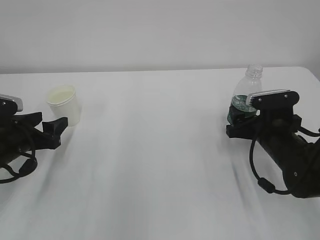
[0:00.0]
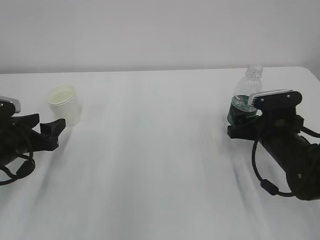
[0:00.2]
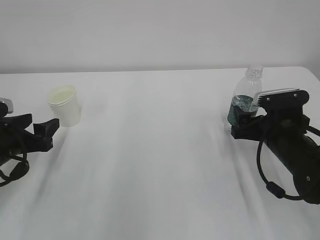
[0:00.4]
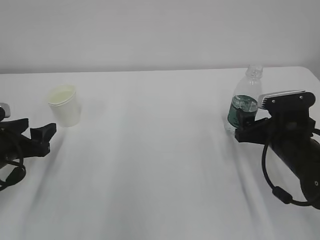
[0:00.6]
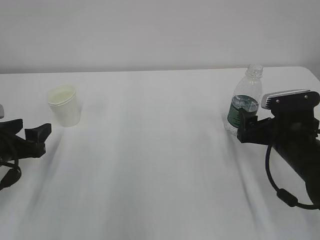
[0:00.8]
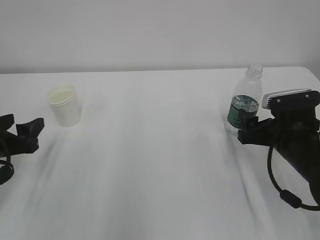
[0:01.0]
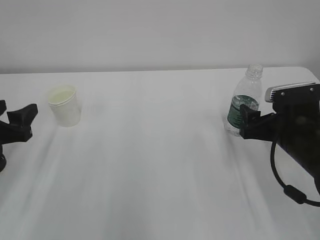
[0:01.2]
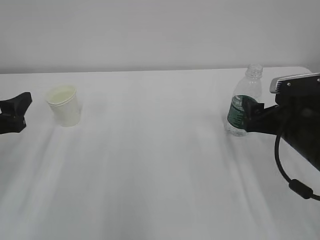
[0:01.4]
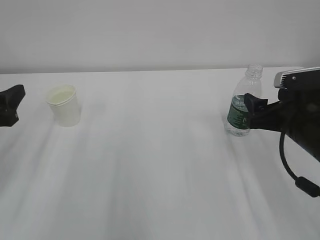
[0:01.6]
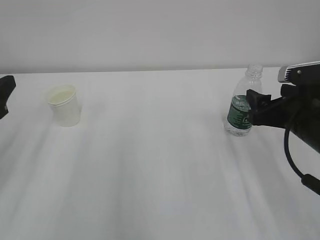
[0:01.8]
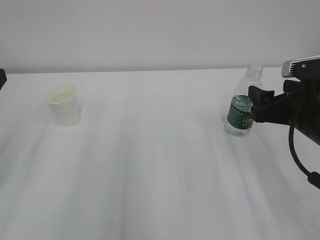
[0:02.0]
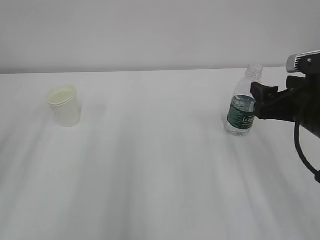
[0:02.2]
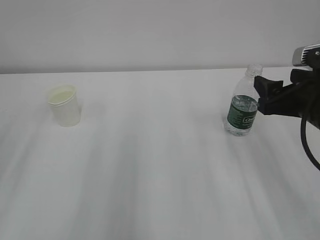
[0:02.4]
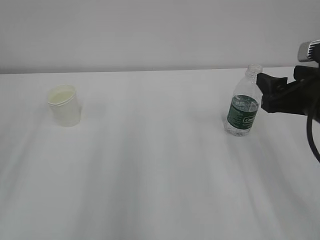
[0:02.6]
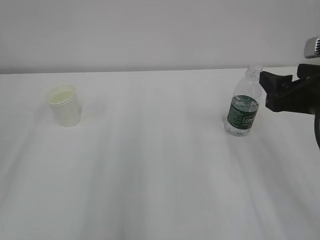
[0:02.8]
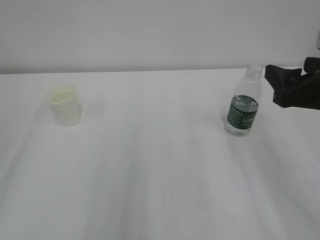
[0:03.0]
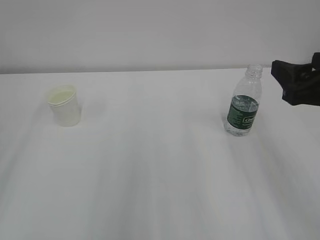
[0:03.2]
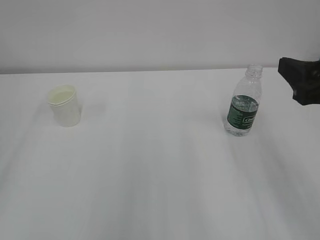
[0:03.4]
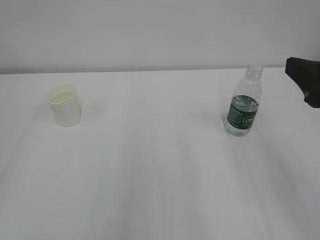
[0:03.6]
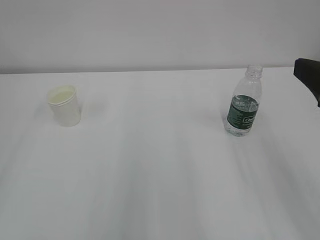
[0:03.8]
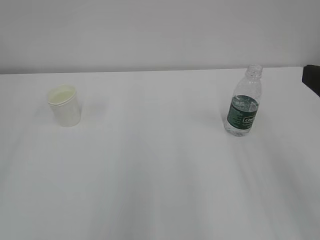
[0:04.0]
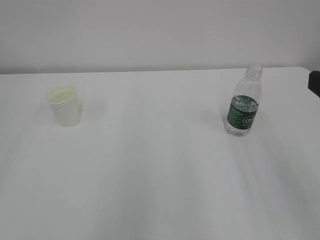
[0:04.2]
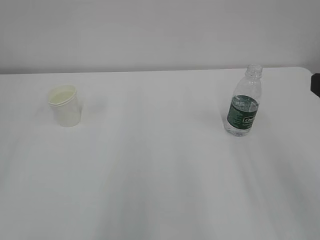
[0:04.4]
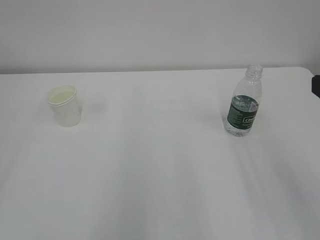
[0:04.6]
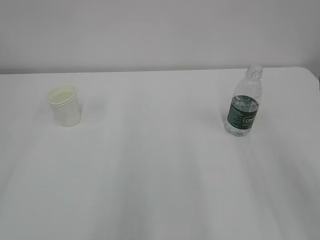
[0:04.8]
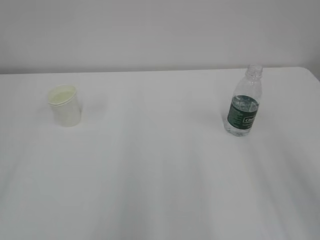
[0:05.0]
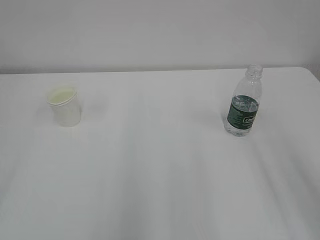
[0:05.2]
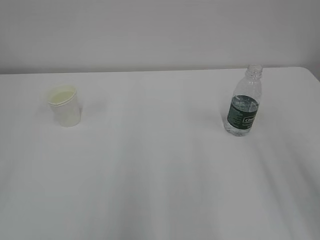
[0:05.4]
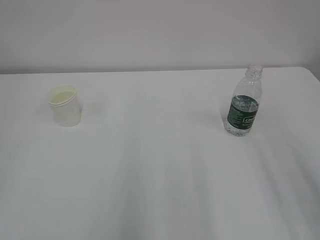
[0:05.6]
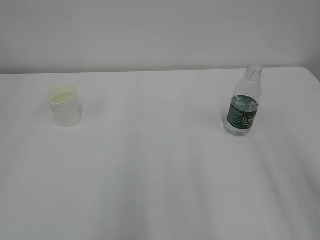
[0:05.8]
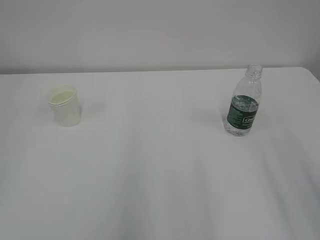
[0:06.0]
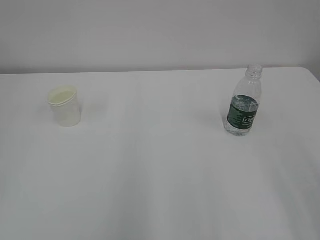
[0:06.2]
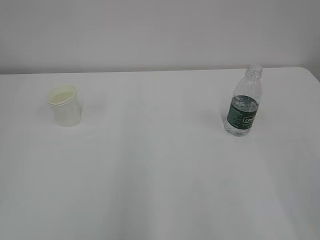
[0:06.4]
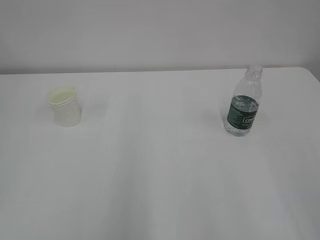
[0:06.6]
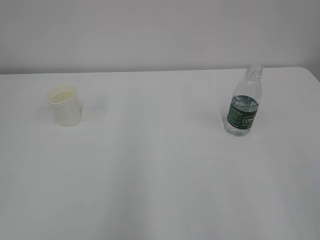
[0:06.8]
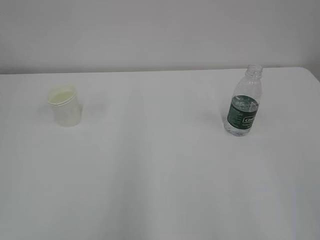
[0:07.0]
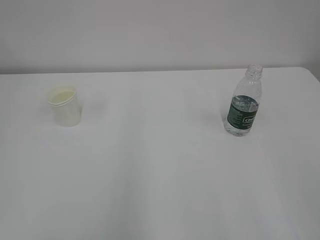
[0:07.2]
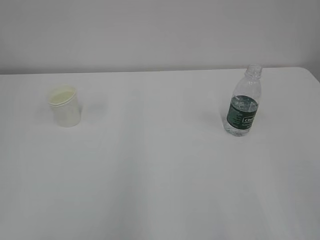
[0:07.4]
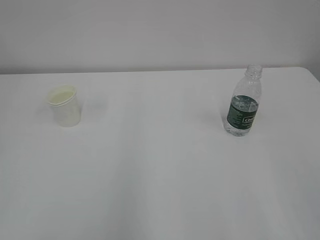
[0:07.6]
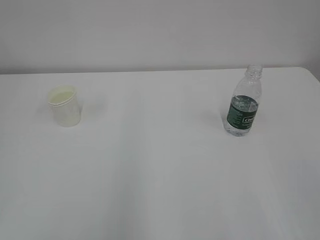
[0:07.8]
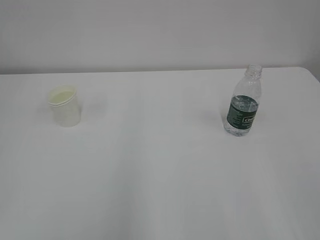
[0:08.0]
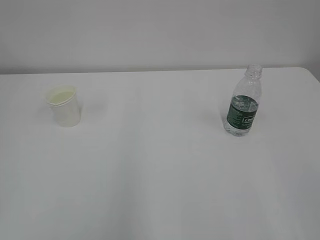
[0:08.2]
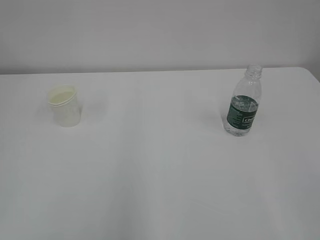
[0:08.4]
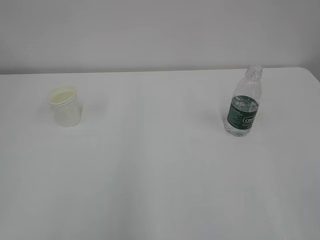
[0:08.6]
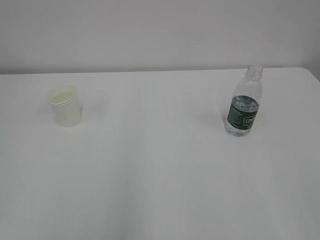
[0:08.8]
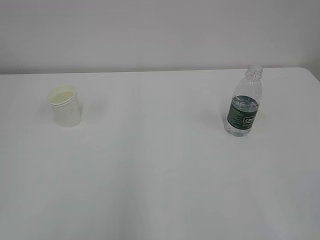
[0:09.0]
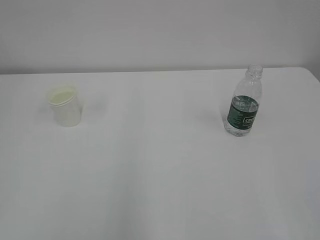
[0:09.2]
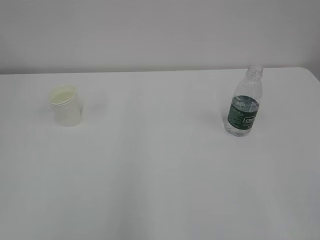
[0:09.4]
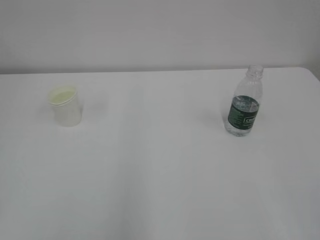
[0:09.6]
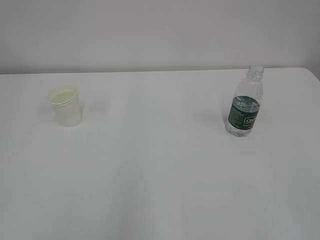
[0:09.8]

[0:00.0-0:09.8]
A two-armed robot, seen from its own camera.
0:00.0 to 0:01.4: The grippers both shift upward by approximately 5 cm.
0:01.4 to 0:02.8: The left gripper heads upward and backward, covering approximately 15 cm. The right gripper goes some 10 cm upward.
0:02.8 to 0:04.2: The right gripper travels backward and upward by about 10 cm.

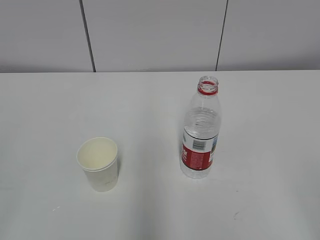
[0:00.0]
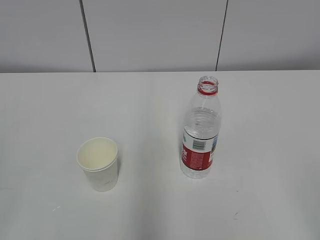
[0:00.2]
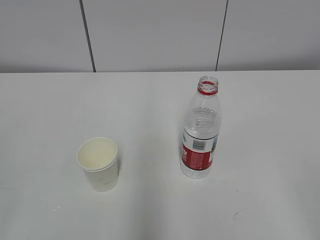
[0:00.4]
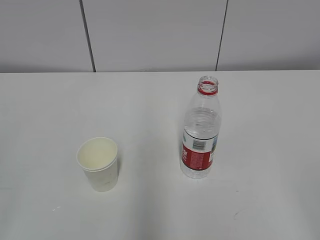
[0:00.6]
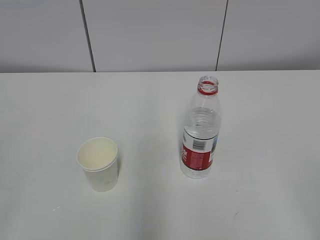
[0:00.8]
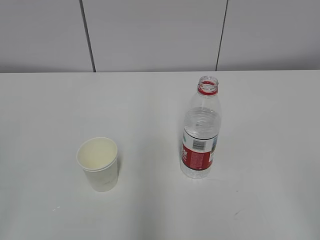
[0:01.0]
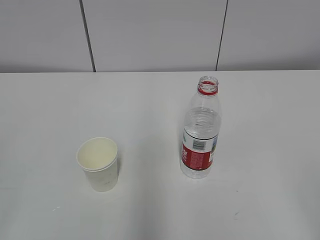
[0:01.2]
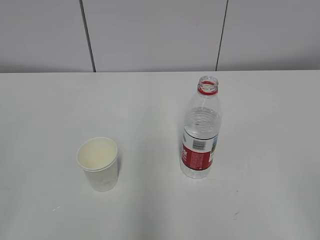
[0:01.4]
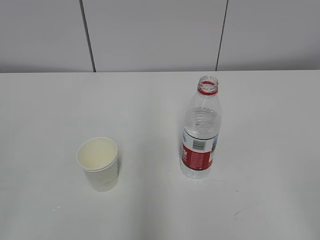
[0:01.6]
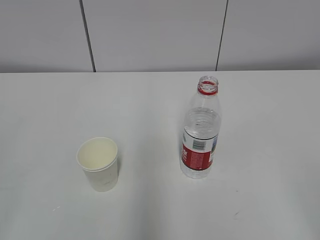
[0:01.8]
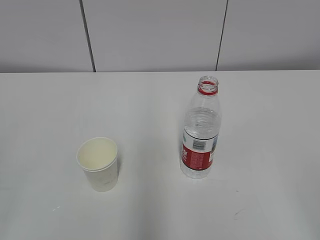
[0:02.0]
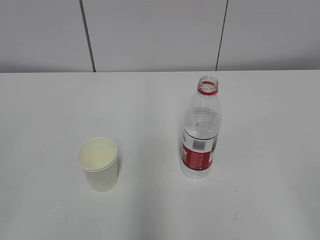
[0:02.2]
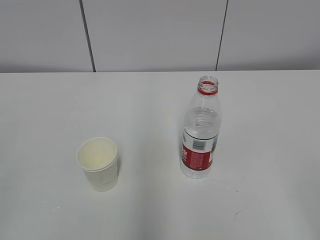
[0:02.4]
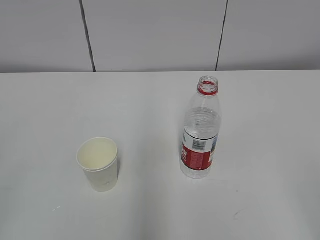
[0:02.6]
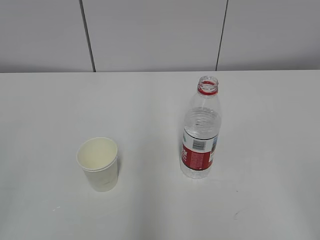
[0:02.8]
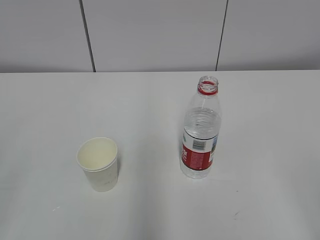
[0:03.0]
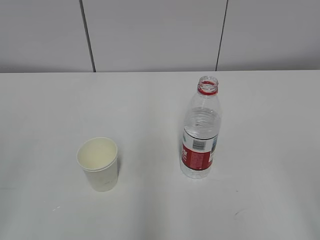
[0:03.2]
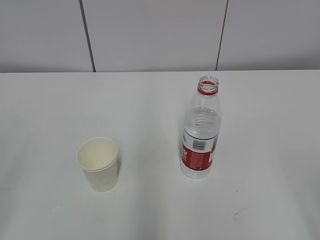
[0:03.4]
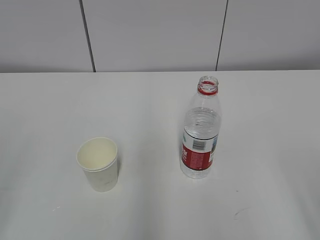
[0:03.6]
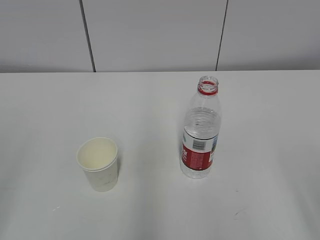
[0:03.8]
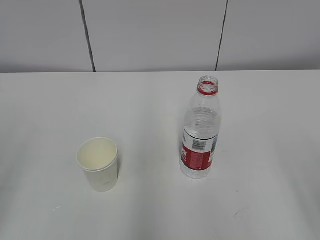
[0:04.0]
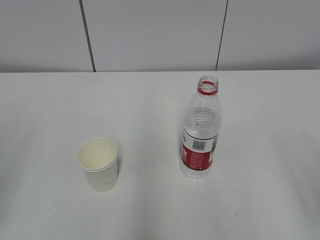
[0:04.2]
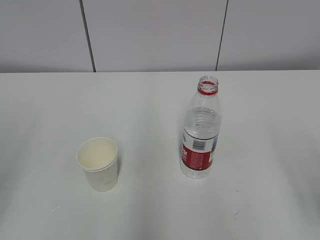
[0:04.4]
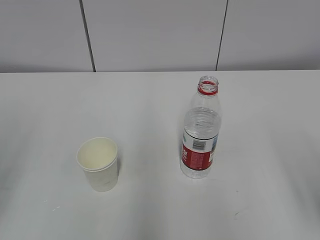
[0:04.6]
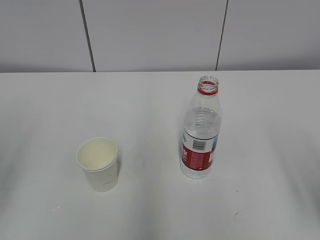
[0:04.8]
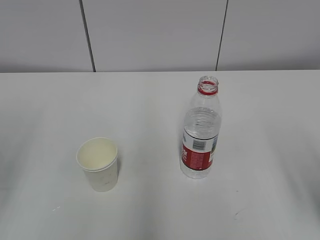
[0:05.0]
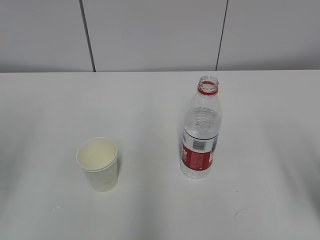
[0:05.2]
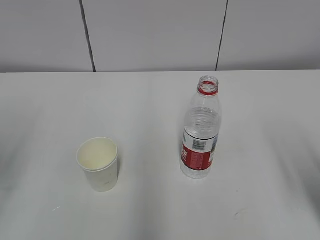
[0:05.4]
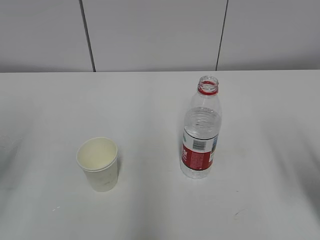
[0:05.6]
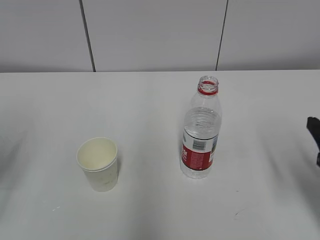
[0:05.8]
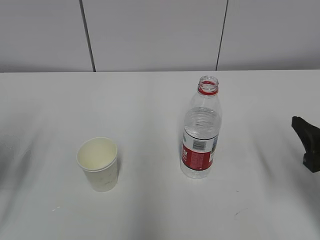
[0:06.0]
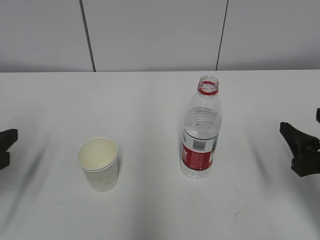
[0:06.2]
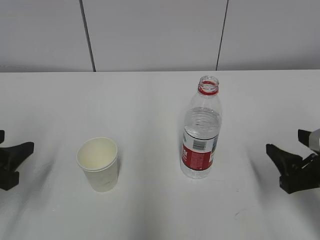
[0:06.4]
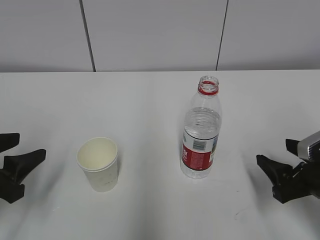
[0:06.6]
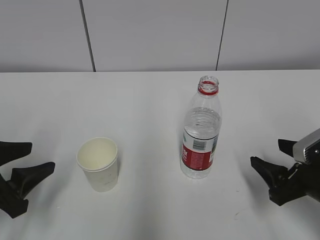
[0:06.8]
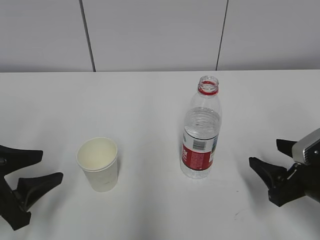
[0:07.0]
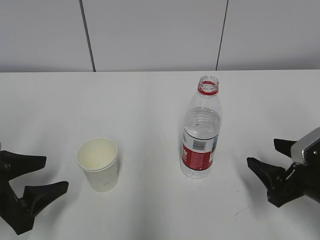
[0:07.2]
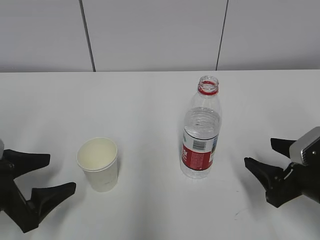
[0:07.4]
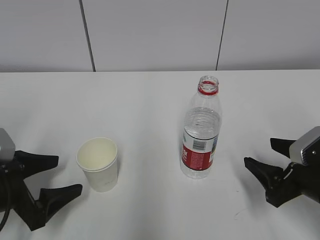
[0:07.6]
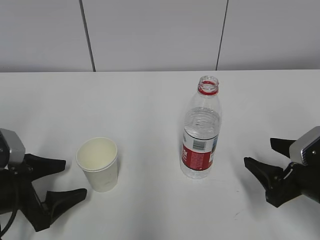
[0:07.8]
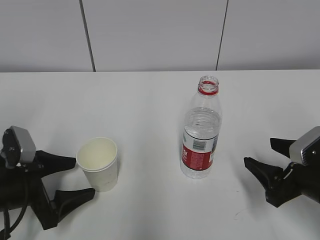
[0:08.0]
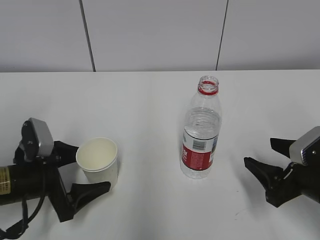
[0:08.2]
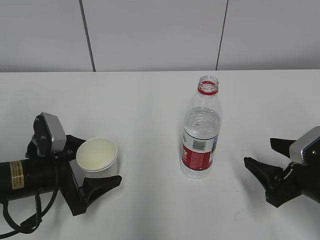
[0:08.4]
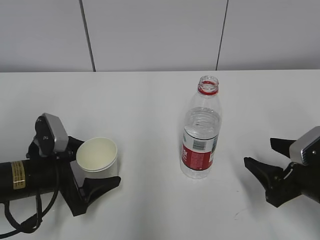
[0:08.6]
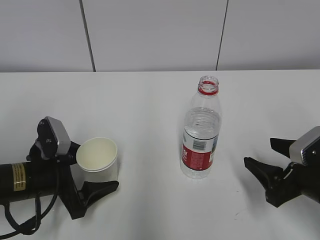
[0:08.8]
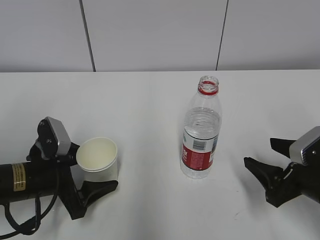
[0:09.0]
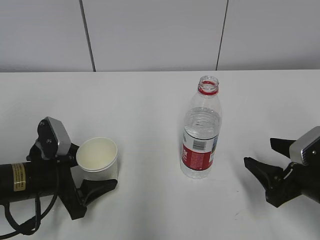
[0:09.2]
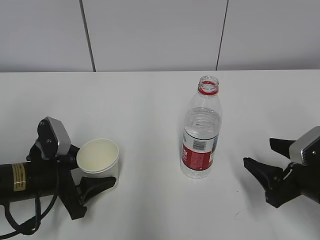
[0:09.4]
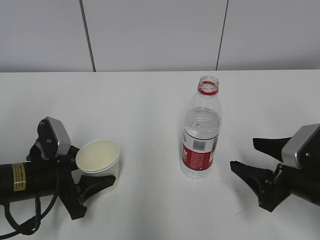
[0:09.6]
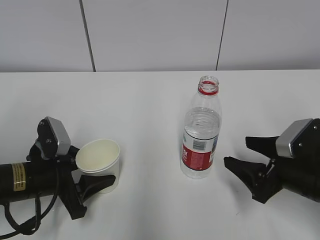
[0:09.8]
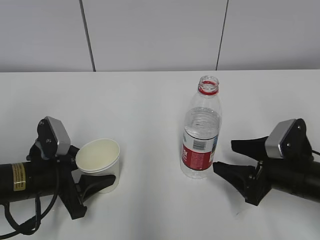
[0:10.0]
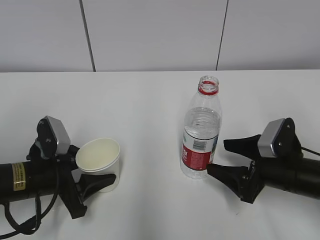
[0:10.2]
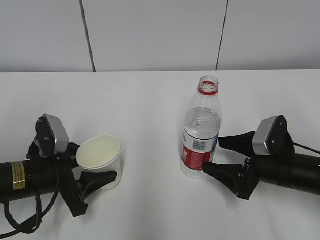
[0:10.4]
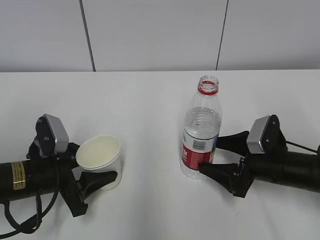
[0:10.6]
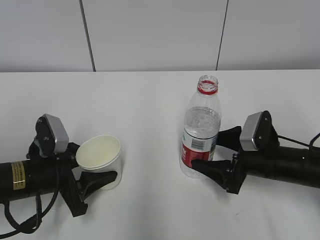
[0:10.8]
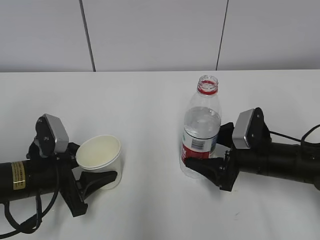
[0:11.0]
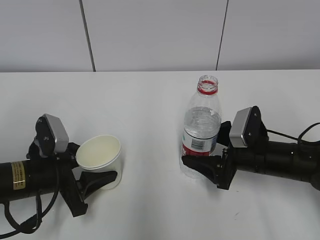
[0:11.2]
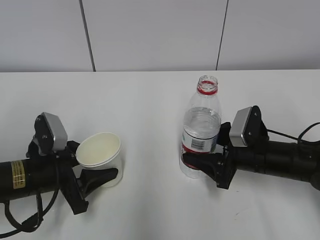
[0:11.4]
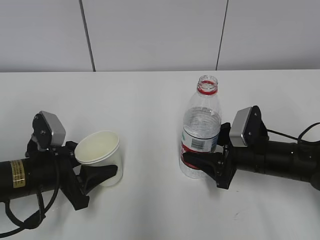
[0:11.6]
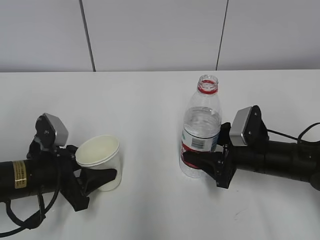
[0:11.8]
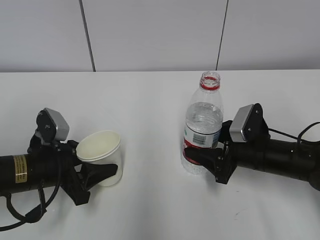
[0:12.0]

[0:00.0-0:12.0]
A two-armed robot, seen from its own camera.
Step, 0:00.0 to 0:07.8: Grab the paper cup with the left hand.
0:04.4 to 0:06.0: Both grippers move forward and downward, some 15 cm.
0:06.0 to 0:07.6: The left gripper moves downward and to the right, some 10 cm, and opens up. The right gripper heads downward, covering about 5 cm.
0:07.6 to 0:09.0: The left gripper shifts approximately 5 cm to the right.
0:09.0 to 0:10.4: The right gripper moves forward, approximately 5 cm, and opens. The left gripper closes its fingers.
0:10.4 to 0:12.0: The right gripper closes.

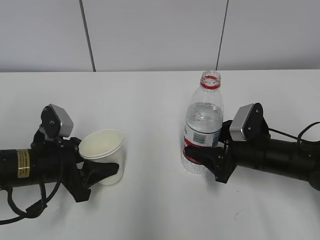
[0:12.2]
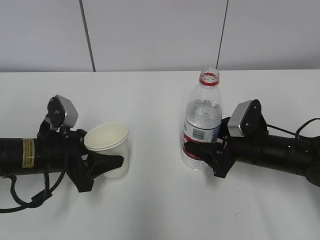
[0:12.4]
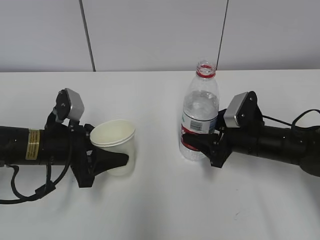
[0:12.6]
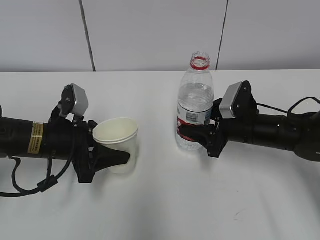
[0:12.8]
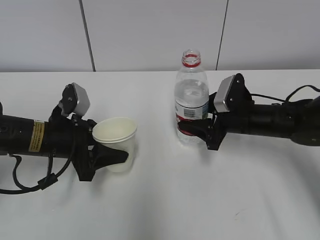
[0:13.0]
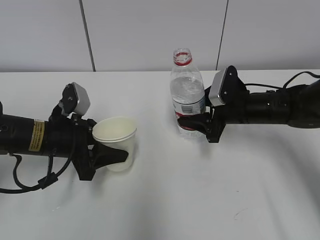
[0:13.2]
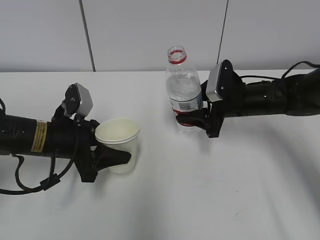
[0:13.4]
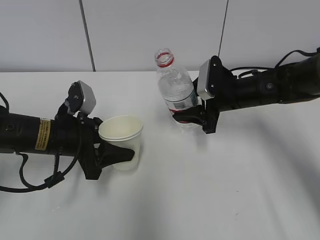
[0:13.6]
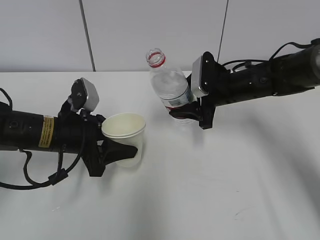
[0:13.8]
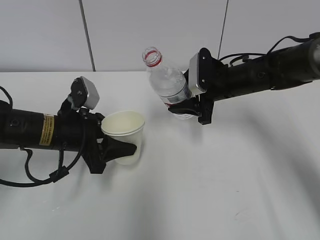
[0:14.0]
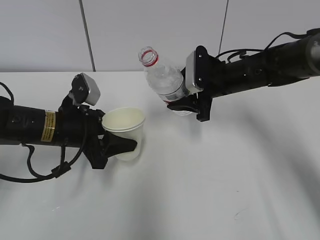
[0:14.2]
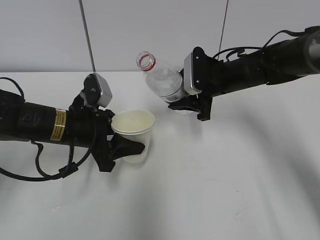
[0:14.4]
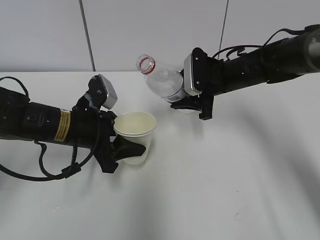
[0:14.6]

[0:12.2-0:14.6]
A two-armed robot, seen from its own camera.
0:12.2 to 0:13.4: The right gripper shifts approximately 10 cm forward.
0:13.4 to 0:14.6: The right gripper ends up some 5 cm from where it was.
